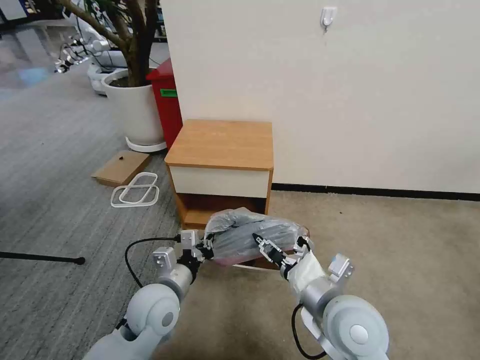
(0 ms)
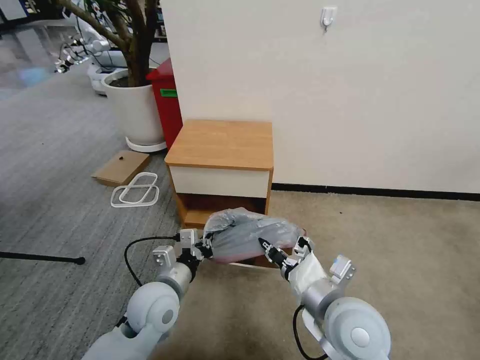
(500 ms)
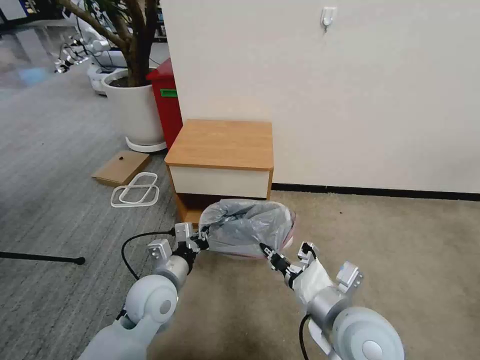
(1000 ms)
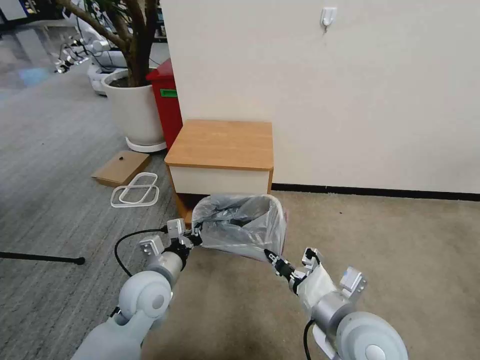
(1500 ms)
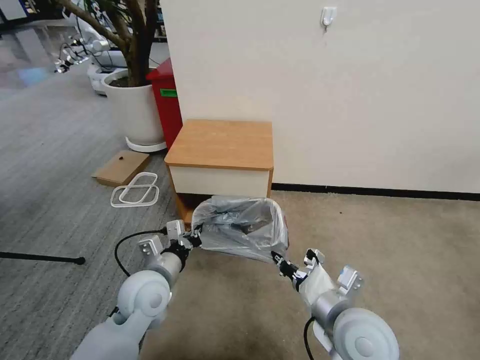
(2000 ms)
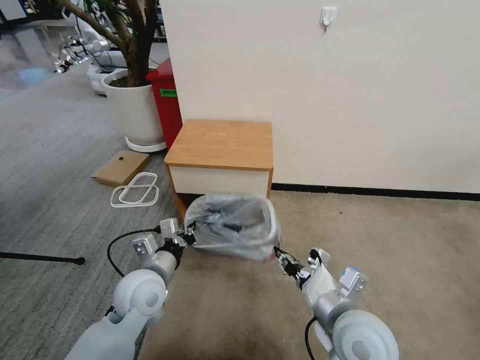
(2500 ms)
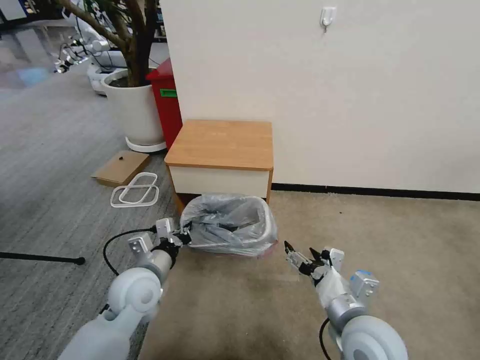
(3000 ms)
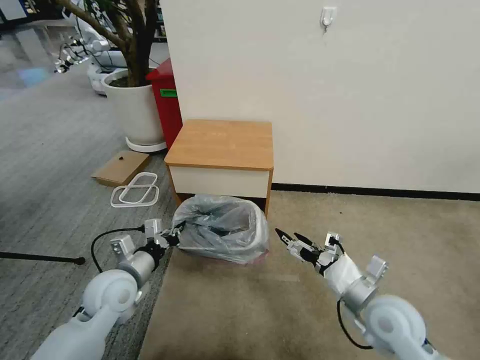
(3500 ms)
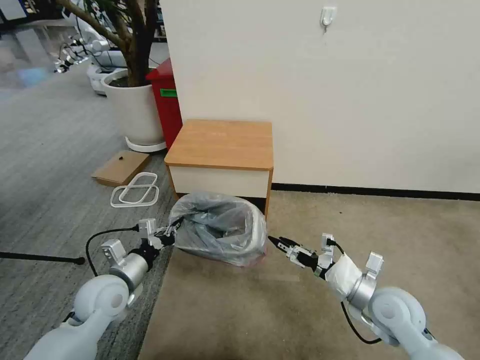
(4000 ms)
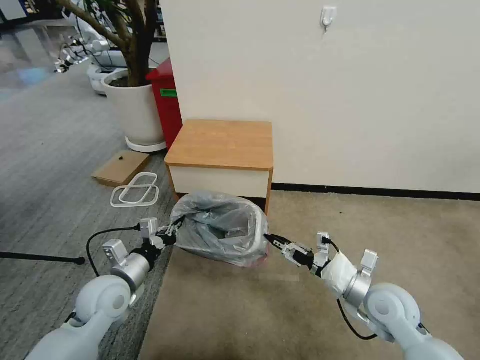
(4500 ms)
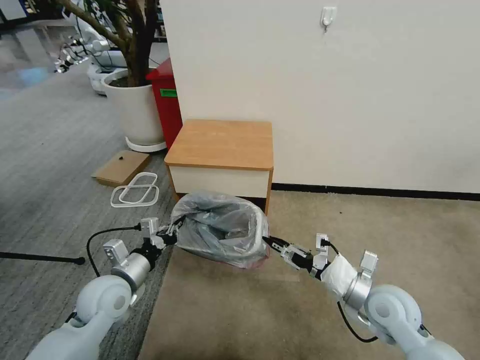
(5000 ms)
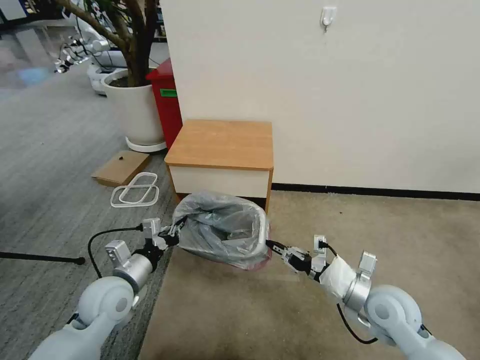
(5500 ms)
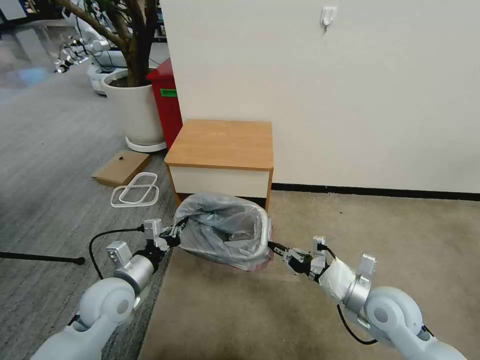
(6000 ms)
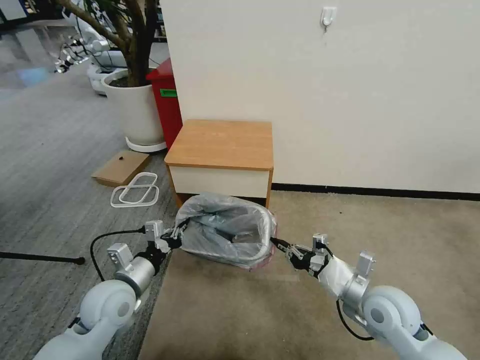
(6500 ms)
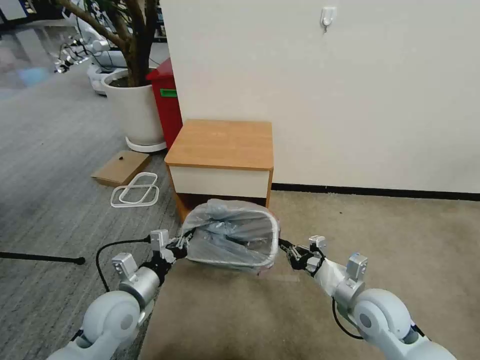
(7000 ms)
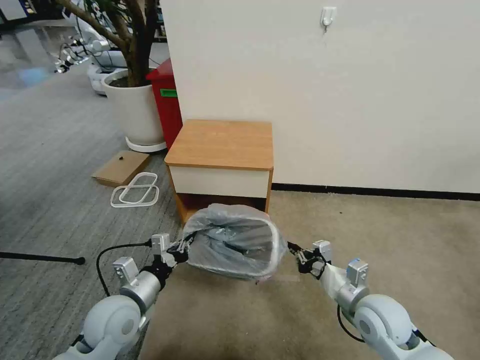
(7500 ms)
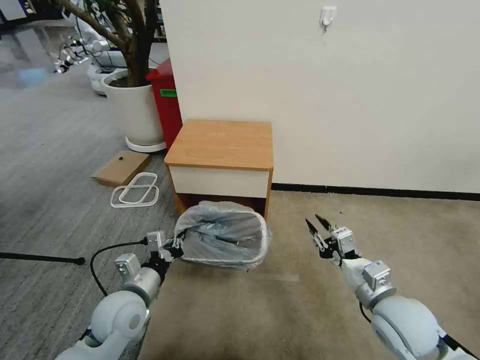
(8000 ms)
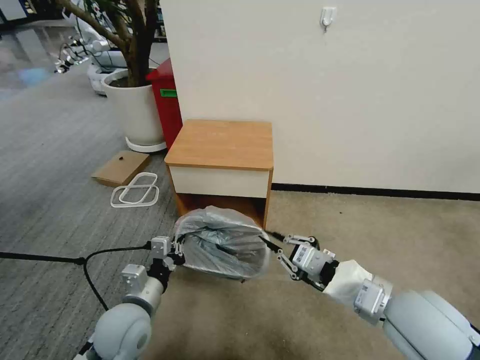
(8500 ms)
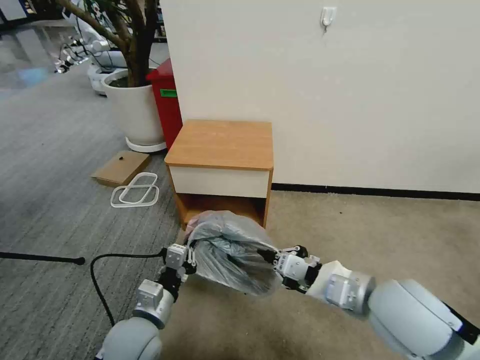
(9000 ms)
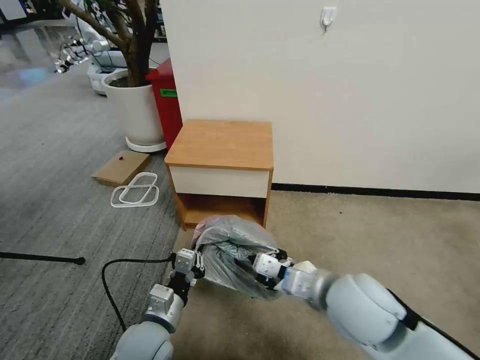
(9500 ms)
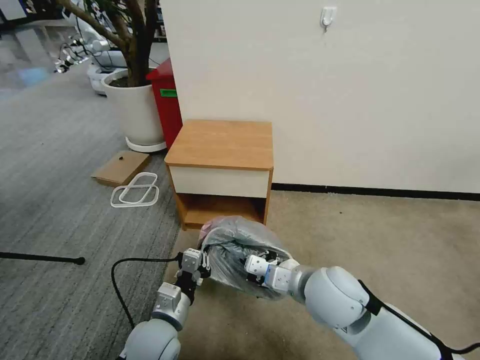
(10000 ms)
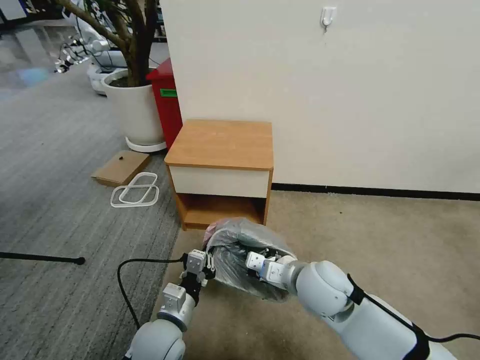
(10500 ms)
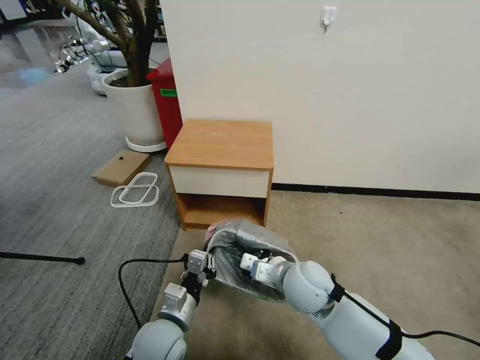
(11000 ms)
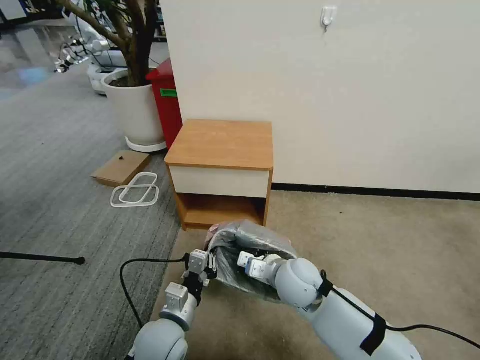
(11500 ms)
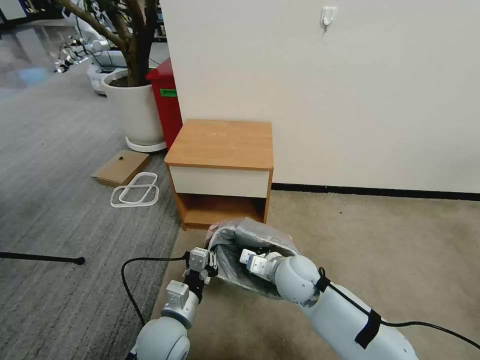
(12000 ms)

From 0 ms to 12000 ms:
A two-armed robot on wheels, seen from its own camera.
Task of the whole recording: Pick up the garbage bag from the table and place it over the trash can.
From 0 ms to 2000 ms: The right gripper closes its fingers.
From 2000 ms to 4000 ms: The left gripper heads to the left, covering roughly 10 cm; the right gripper heads to the right, downward and forward, covering some 15 cm, and opens.
From 4000 ms to 6000 ms: The right gripper closes its fingers.
From 8000 ms to 10000 ms: The left gripper goes approximately 5 cm to the right. The right gripper travels to the left by approximately 15 cm.
From 10000 ms to 12000 ms: The right gripper heads downward and forward, covering some 10 cm.

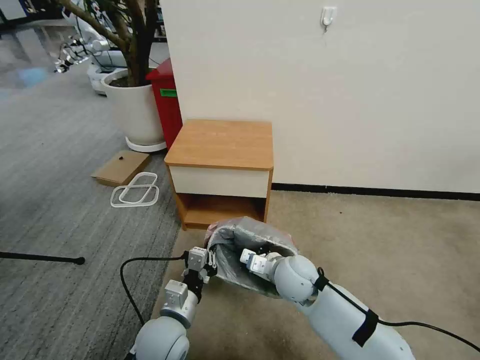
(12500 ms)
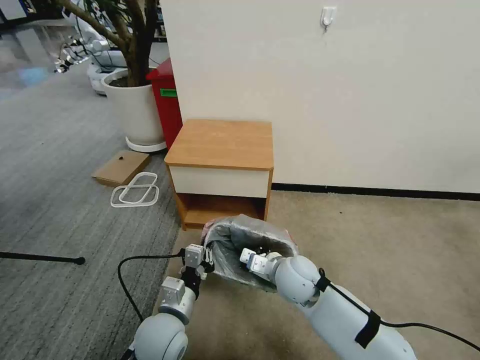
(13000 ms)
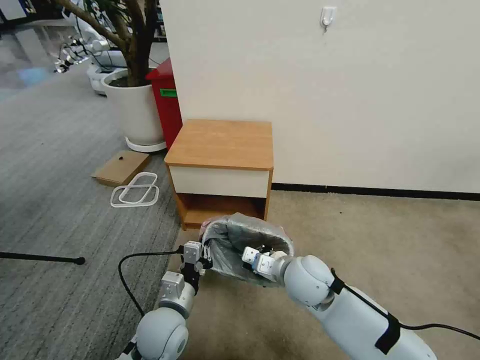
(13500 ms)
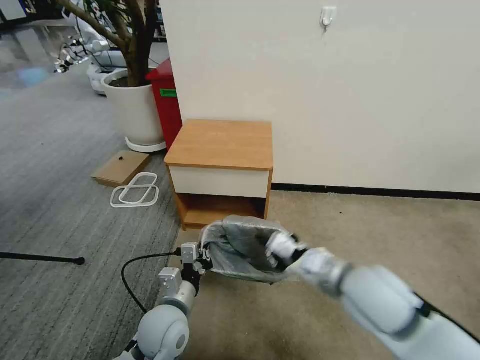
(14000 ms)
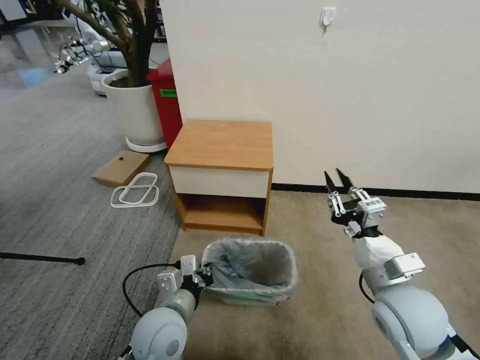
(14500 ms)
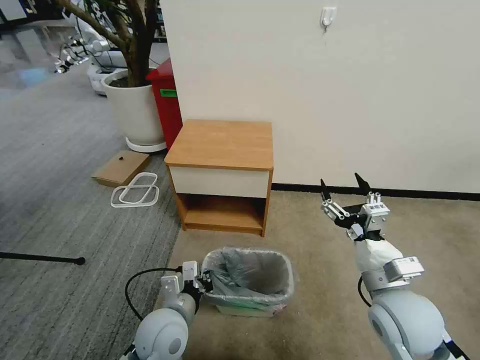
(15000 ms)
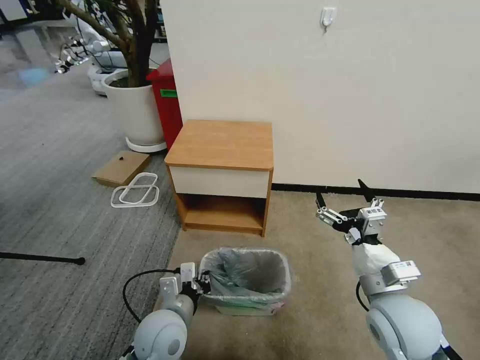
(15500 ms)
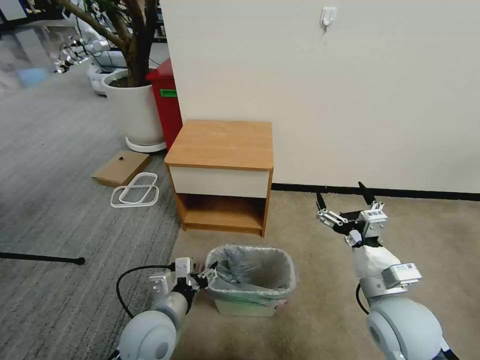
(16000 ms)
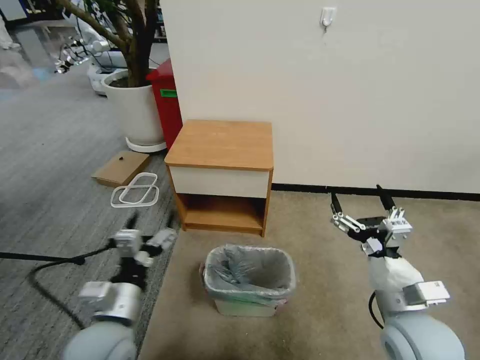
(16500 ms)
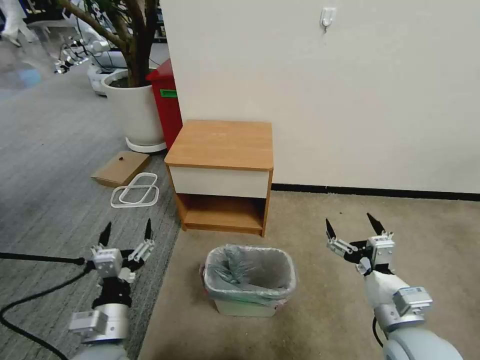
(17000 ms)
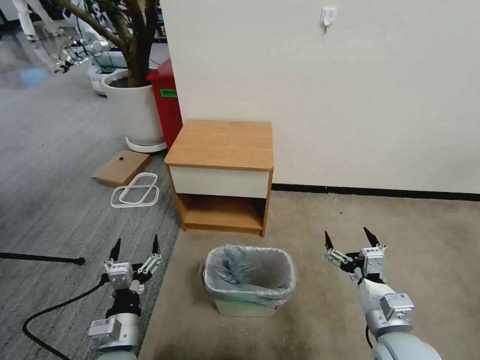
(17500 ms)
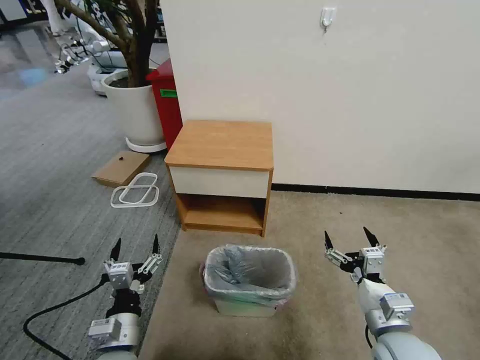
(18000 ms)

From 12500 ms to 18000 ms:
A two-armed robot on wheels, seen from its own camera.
Task of the whole recording: Pick up the garbage bag from the table and place it over the trash can.
From 12500 ms to 14500 ms: The right gripper heads to the right, backward and upward, covering about 20 cm.
From 14500 ms to 16000 ms: The right gripper opens; the left gripper opens its fingers.
From 16000 ms to 18000 ms: The left gripper travels to the left and backward by approximately 10 cm. The right gripper moves downward, some 5 cm.

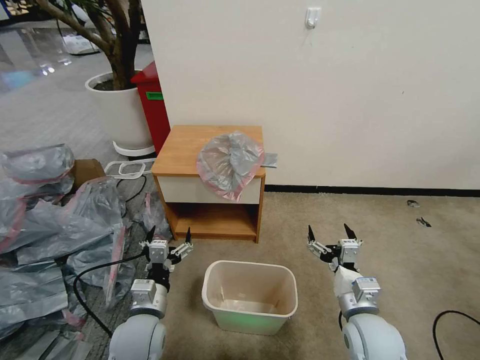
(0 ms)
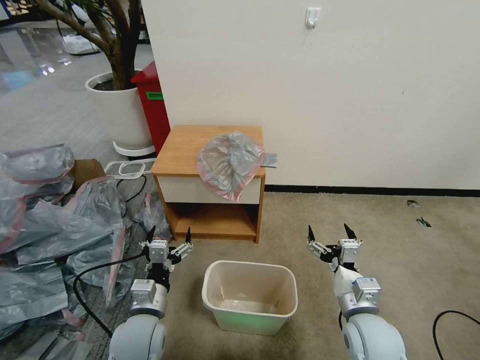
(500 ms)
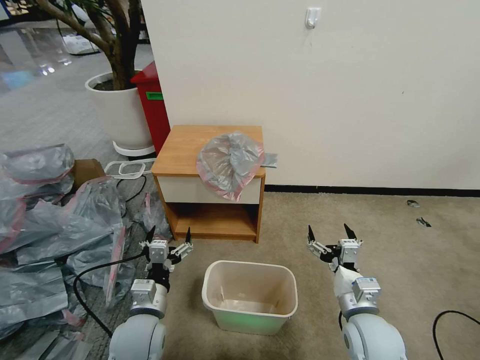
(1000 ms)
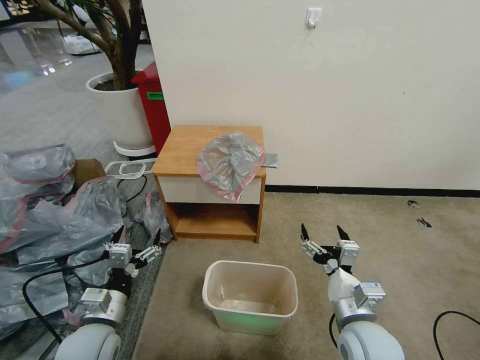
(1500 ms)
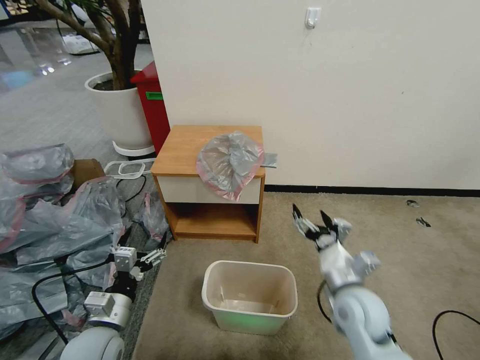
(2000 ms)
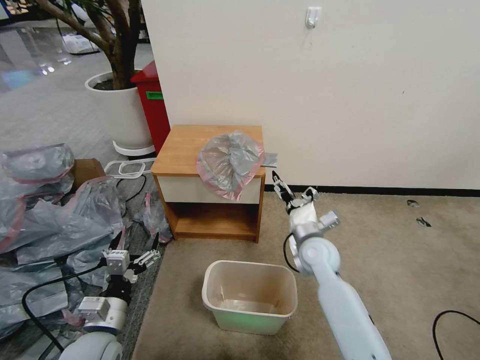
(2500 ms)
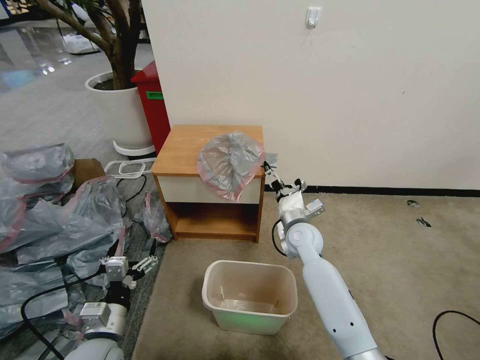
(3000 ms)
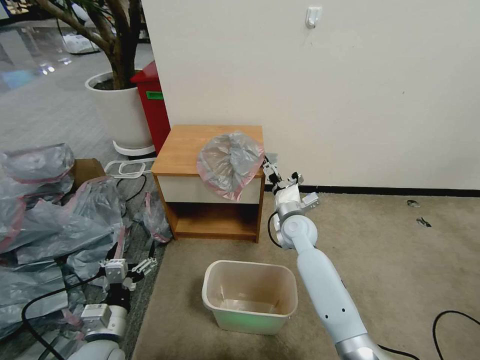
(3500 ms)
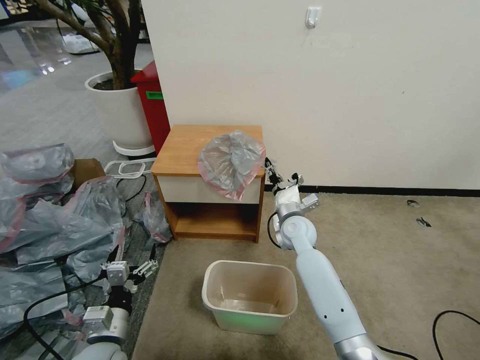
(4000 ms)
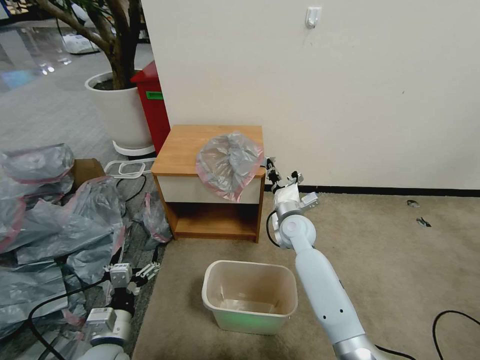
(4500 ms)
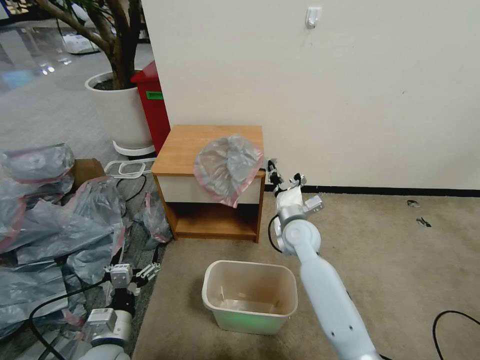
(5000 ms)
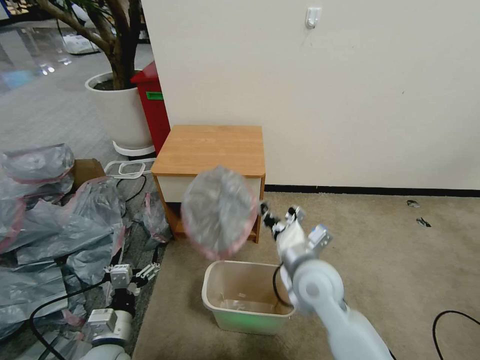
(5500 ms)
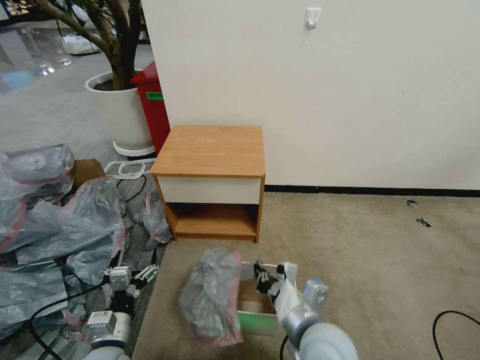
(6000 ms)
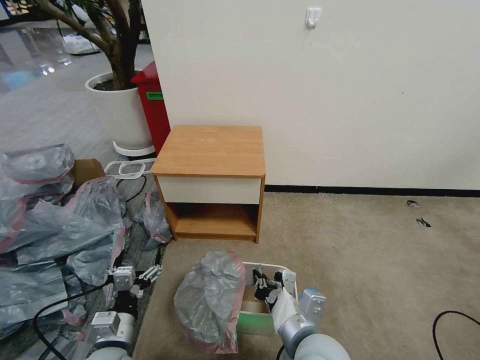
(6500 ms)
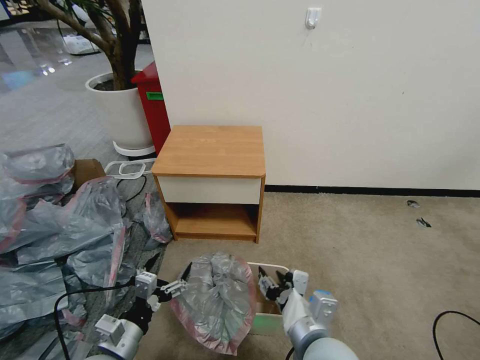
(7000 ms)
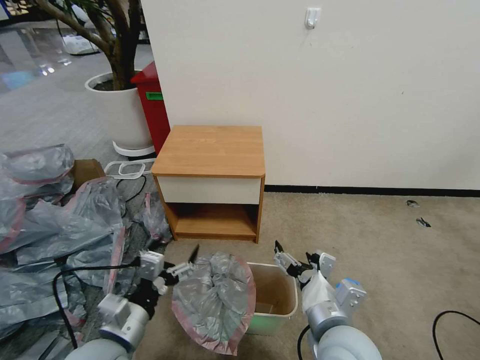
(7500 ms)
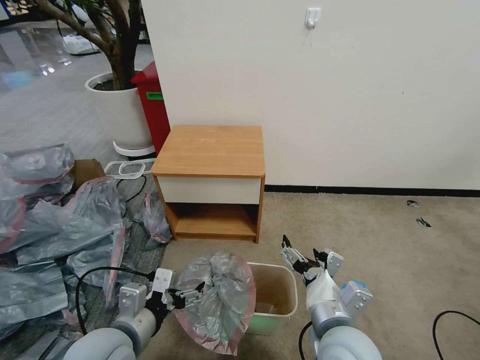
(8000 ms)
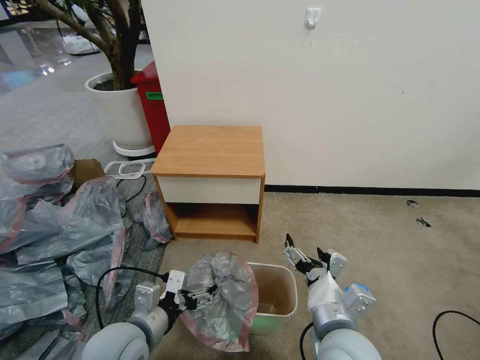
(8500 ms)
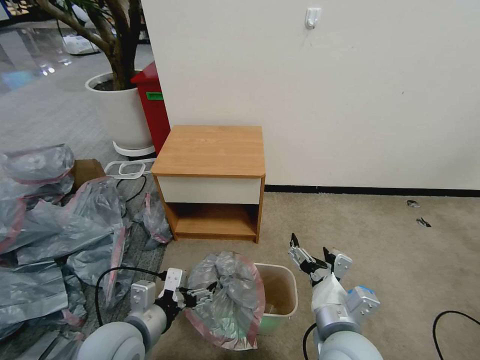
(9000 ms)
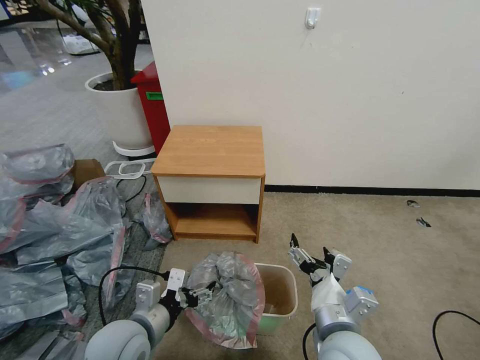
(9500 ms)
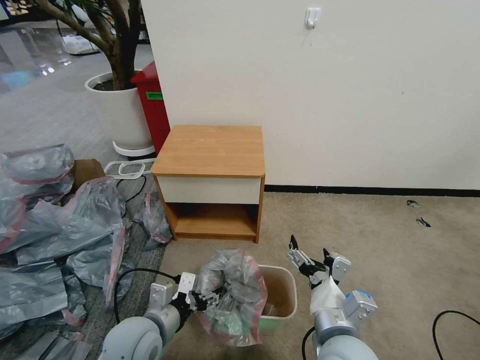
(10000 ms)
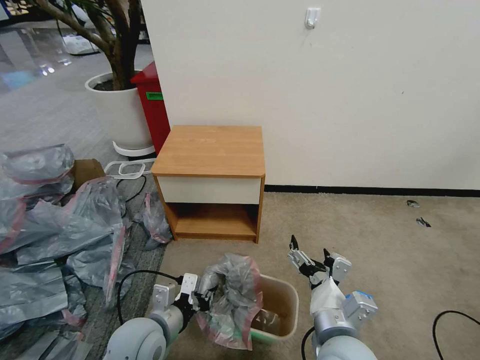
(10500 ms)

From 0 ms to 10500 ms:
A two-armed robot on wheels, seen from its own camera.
Task of the whole recording: Pick up the garbage bag from the table and place it over the trash can.
From 2000 ms to 4000 ms: The right gripper heads forward and to the left, covering some 20 cm, and closes up.
From 4000 ms to 6500 ms: The right gripper shifts about 30 cm backward, and closes up.
From 6500 ms to 8500 ms: The left gripper is displaced upward and to the right by approximately 10 cm; the right gripper opens.
From 8500 ms to 10500 ms: The left gripper closes up.
